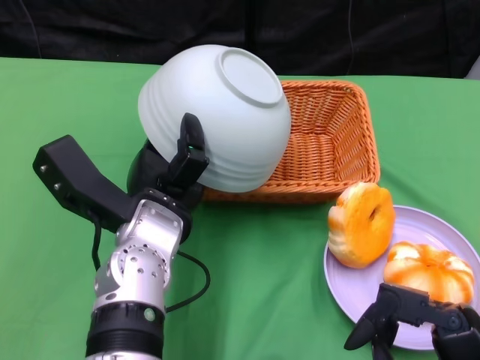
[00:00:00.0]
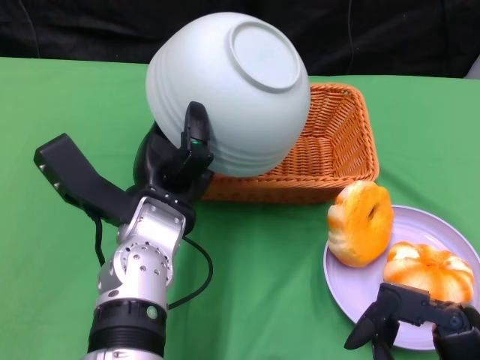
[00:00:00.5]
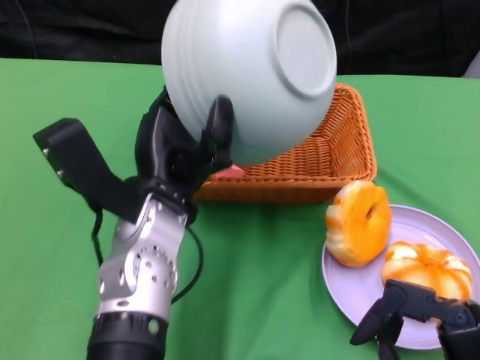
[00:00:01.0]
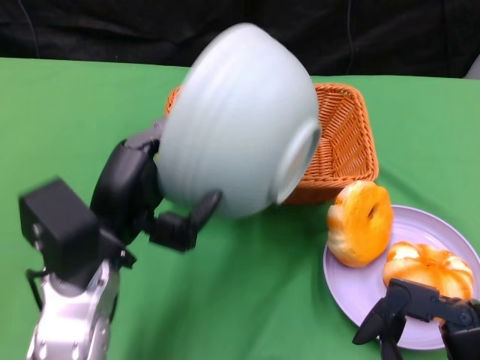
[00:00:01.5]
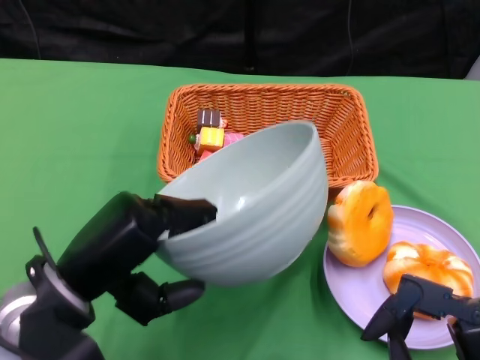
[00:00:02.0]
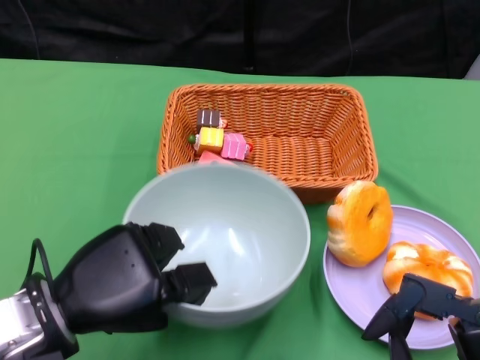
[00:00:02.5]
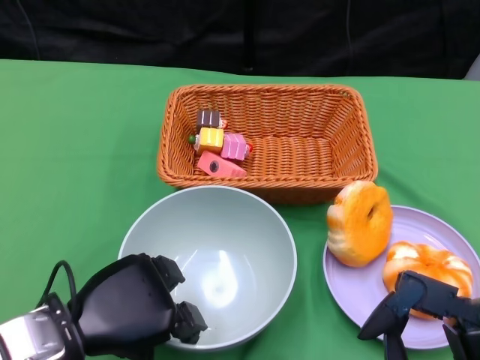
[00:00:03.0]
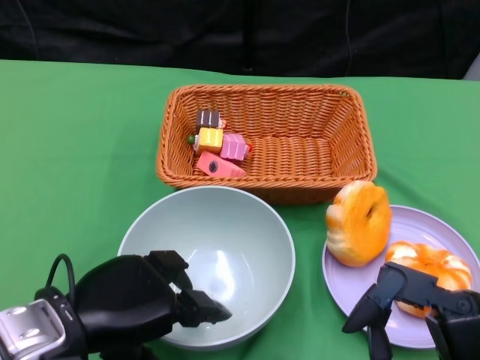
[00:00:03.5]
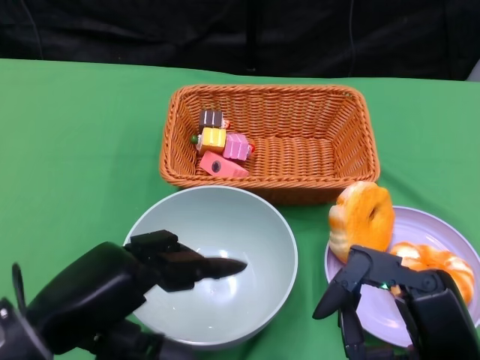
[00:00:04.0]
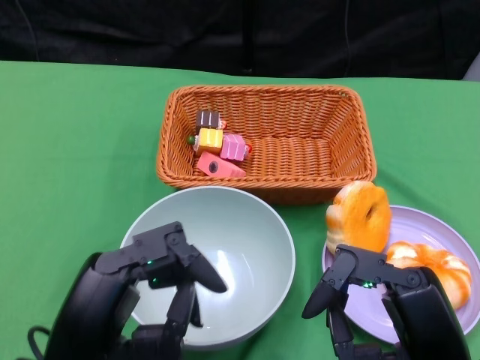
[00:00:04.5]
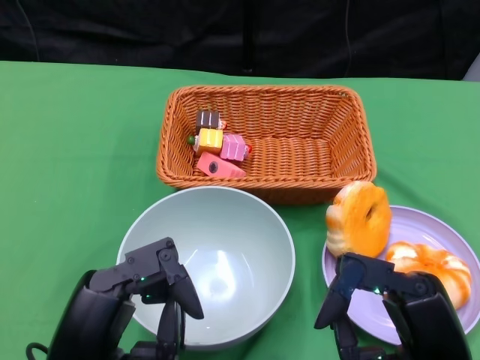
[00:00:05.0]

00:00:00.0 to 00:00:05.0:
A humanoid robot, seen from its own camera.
Step, 00:00:00.5 to 00:00:03.0: Place the bowl on the table with the left gripper.
00:00:00.0 to 00:00:02.5: The left hand heads to the left and backward, covering roughly 15 cm.
00:00:02.5 to 00:00:05.0: The left hand is displaced backward by about 10 cm.
